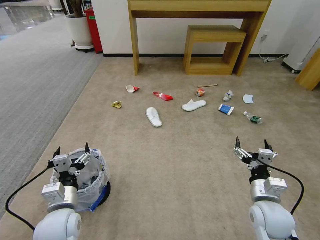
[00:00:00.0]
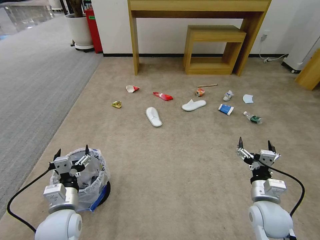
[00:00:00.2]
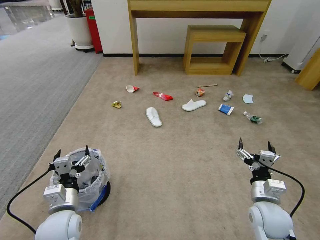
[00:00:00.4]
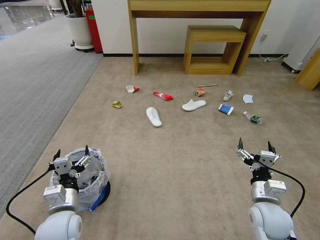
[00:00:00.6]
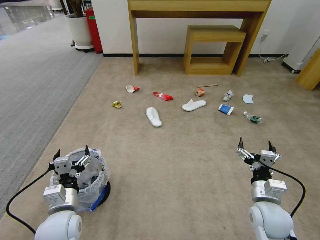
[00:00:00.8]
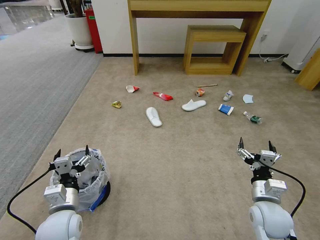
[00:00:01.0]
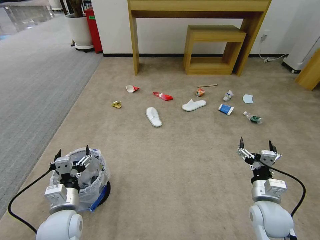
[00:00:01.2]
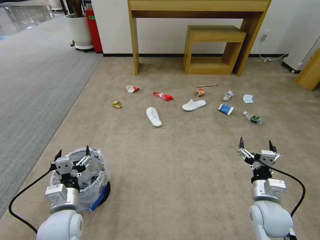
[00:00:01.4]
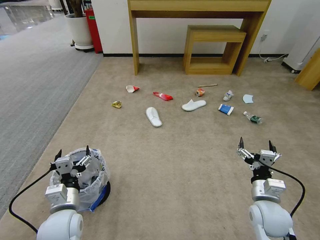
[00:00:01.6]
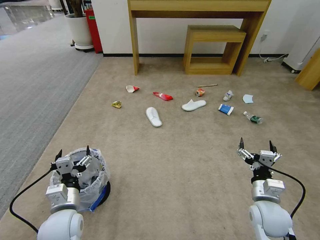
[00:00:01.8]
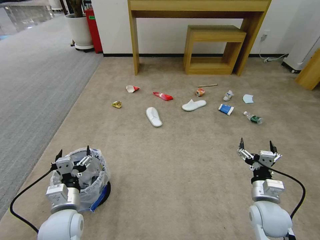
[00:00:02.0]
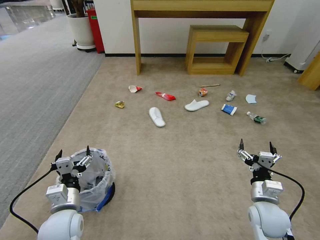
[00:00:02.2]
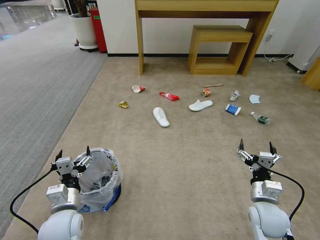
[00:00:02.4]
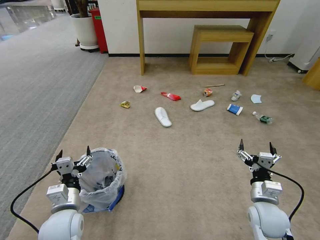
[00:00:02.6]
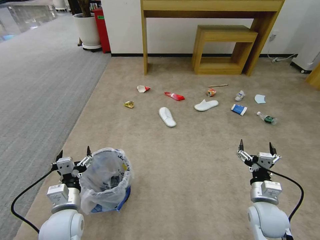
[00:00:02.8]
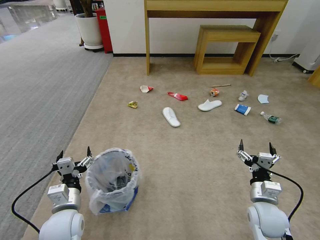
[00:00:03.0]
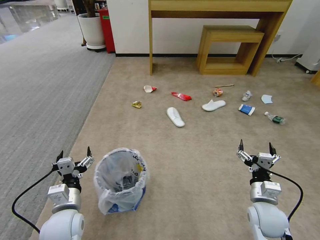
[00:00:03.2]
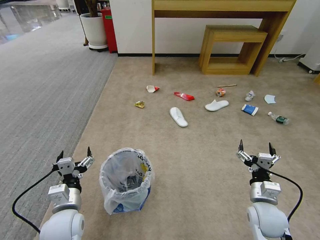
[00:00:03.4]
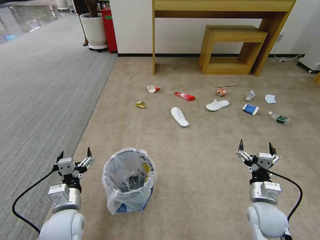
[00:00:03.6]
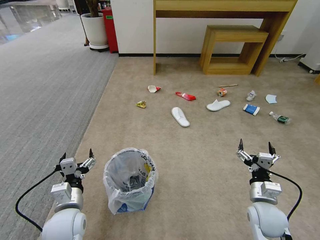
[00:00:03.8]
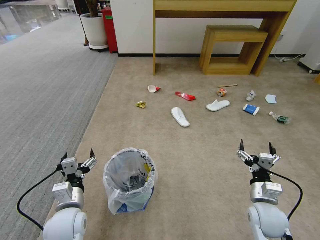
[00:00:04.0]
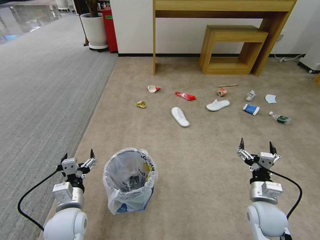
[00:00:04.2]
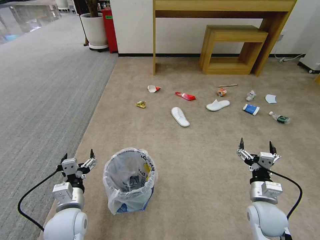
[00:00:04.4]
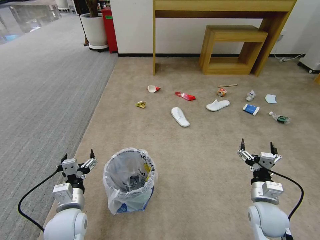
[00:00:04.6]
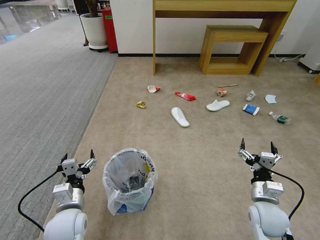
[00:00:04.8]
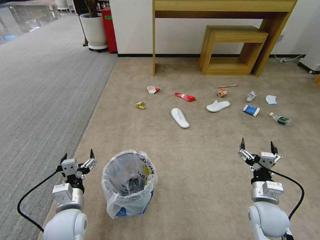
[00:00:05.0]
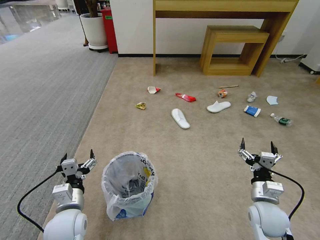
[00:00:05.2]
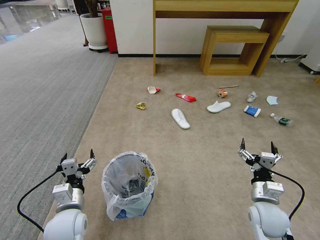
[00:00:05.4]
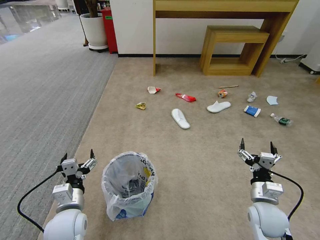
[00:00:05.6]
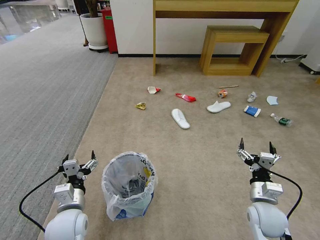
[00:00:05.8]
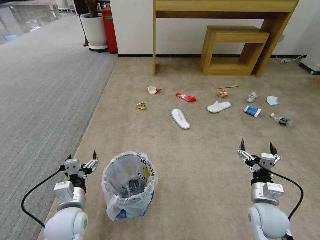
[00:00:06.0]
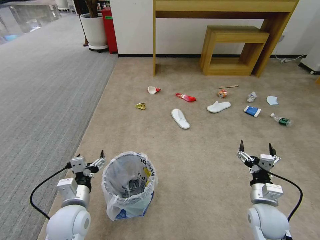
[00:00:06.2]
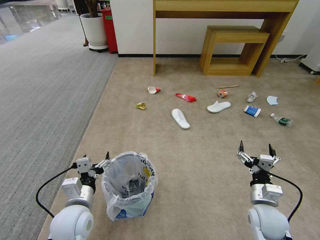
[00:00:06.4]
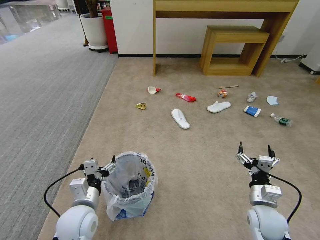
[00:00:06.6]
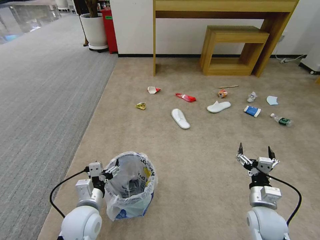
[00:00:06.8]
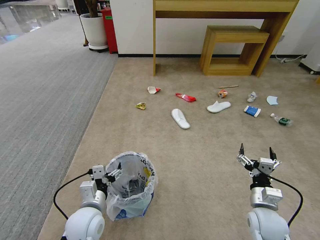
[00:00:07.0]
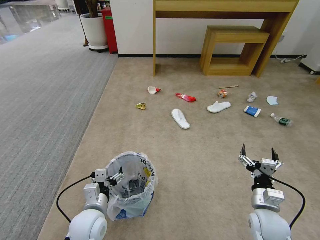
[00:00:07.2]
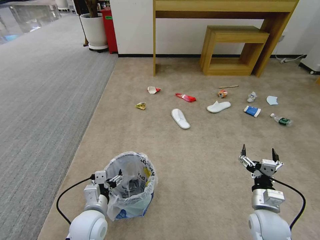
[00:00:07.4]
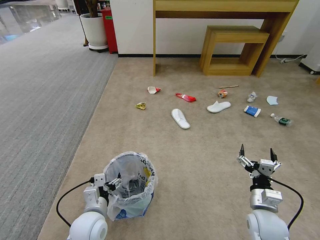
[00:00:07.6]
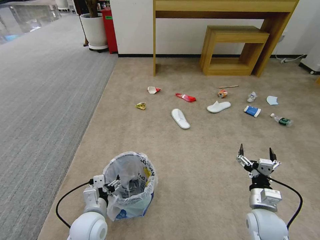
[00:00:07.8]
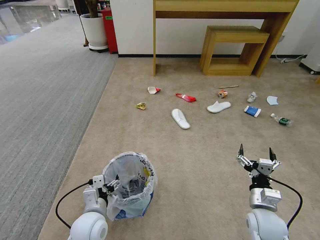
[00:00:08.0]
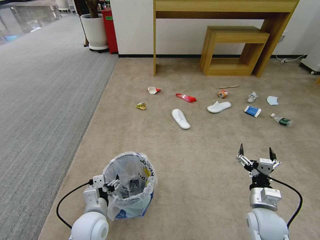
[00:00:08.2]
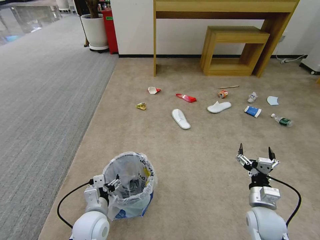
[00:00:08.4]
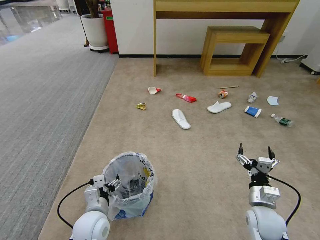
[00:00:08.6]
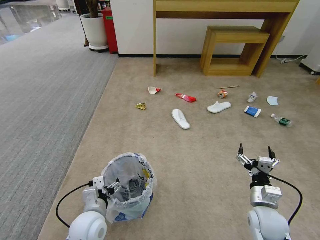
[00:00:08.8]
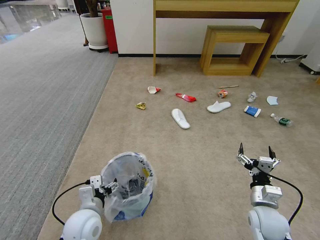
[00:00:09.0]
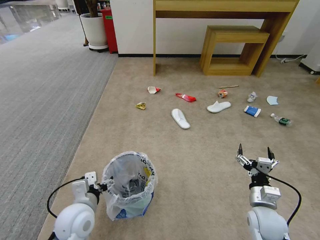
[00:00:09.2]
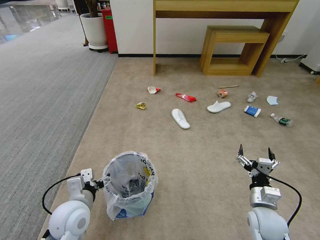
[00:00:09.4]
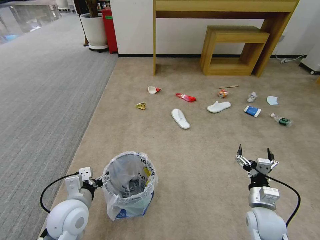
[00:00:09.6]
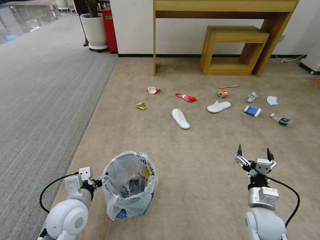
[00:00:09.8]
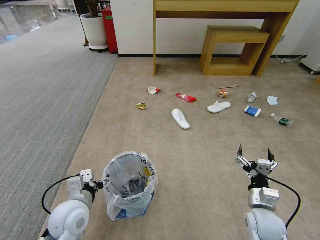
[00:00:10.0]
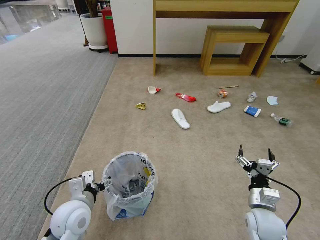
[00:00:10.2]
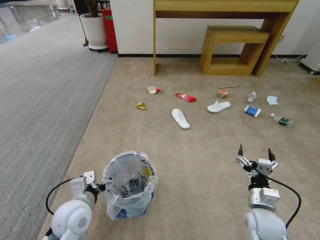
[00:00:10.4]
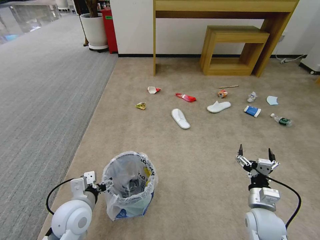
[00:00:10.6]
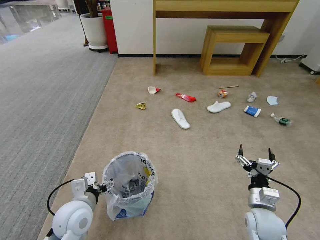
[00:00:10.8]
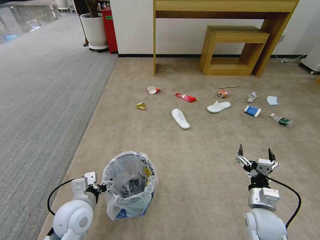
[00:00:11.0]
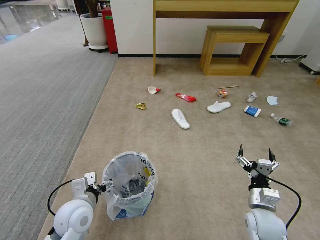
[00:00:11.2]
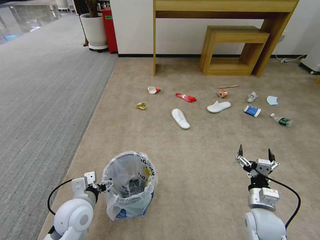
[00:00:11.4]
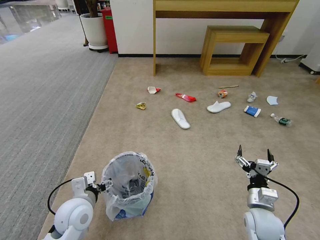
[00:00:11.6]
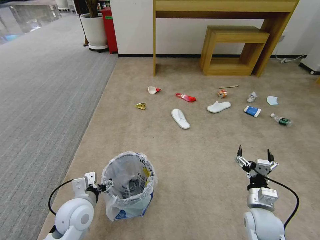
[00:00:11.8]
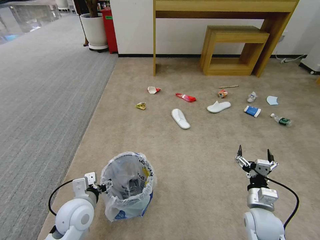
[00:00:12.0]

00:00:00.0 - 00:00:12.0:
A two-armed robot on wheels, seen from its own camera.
Task of the whole recording: Pick up the trash bin and place the garbage on the floor into it.
00:00:01.6 - 00:00:03.0: The grippers move only a little.
00:00:03.0 - 00:00:04.4: Both grippers stay about where they are.
00:00:04.4 - 00:00:06.0: Both grippers stay put.
00:00:06.0 - 00:00:07.6: The left gripper changes place by some 5 cm.
00:00:07.6 - 00:00:09.0: The grippers stay close to where they were, moving slightly.
00:00:09.0 - 00:00:12.0: The grippers move only a little.

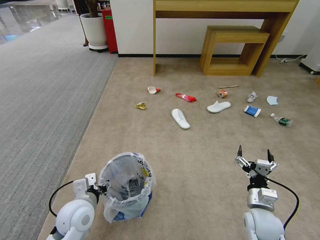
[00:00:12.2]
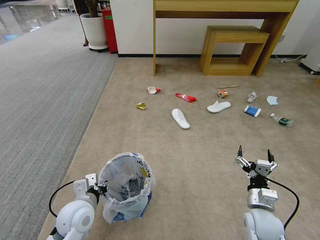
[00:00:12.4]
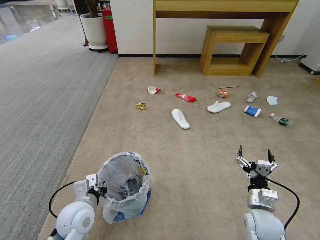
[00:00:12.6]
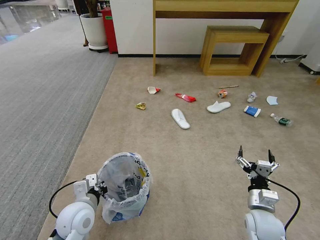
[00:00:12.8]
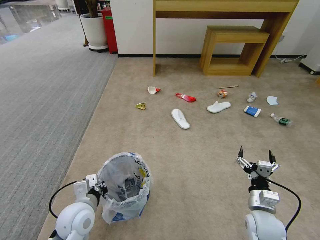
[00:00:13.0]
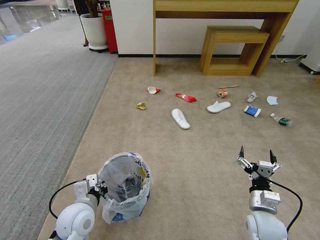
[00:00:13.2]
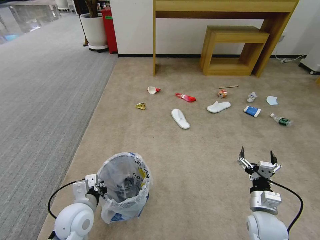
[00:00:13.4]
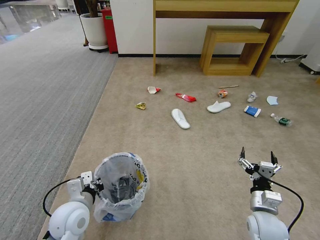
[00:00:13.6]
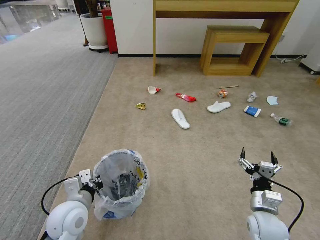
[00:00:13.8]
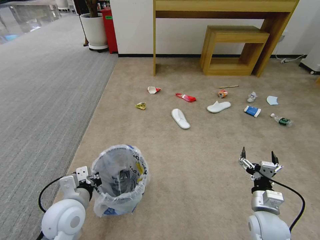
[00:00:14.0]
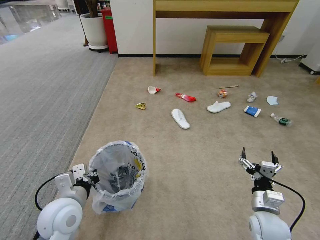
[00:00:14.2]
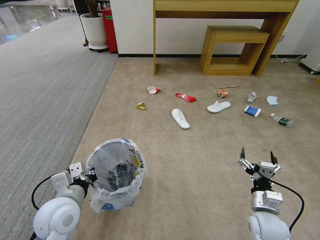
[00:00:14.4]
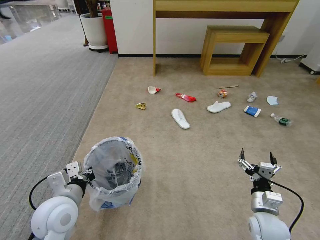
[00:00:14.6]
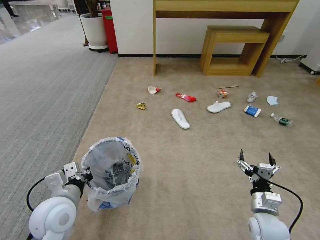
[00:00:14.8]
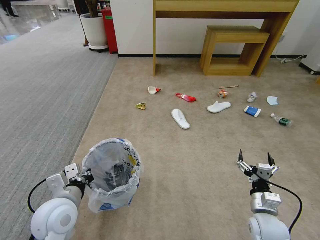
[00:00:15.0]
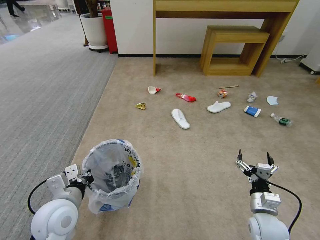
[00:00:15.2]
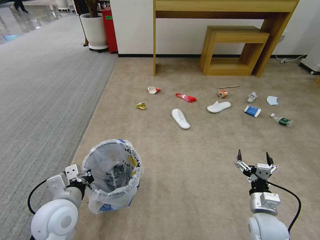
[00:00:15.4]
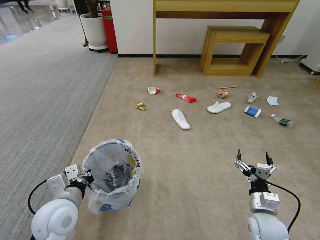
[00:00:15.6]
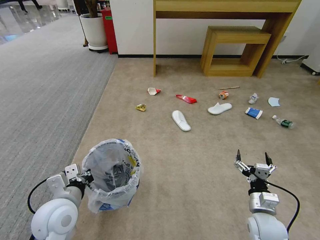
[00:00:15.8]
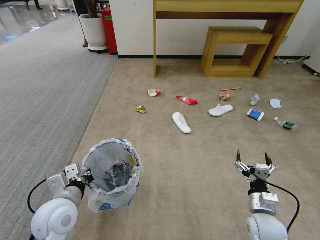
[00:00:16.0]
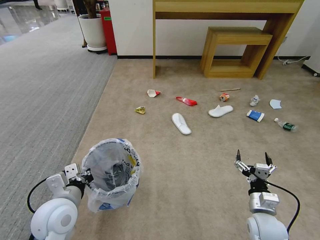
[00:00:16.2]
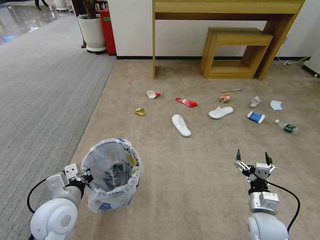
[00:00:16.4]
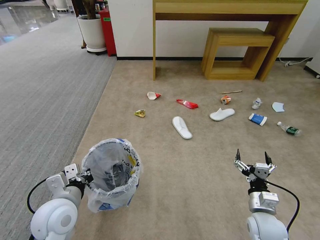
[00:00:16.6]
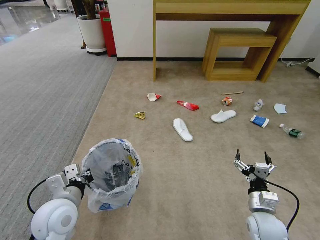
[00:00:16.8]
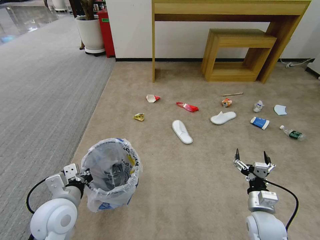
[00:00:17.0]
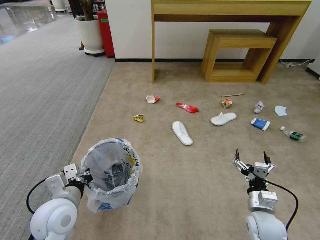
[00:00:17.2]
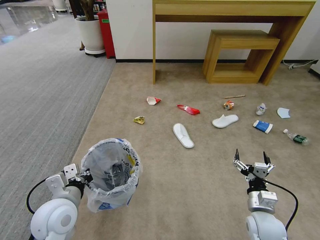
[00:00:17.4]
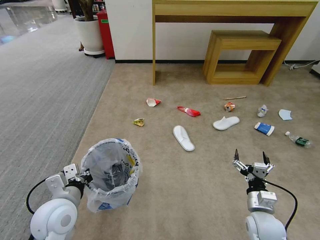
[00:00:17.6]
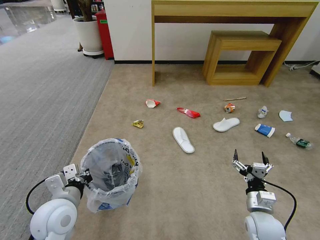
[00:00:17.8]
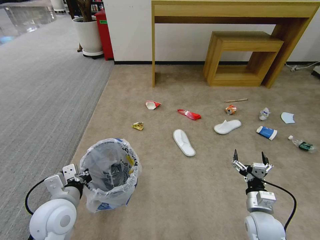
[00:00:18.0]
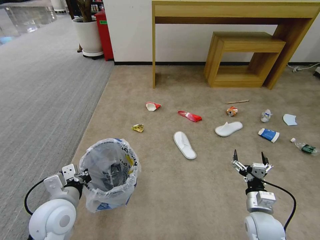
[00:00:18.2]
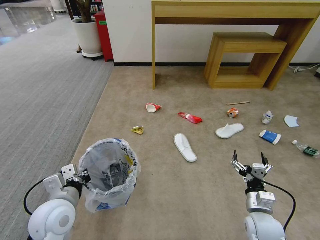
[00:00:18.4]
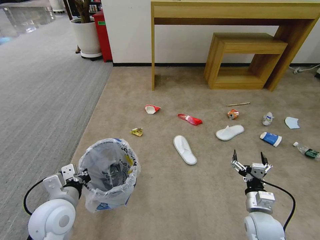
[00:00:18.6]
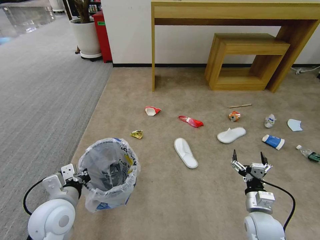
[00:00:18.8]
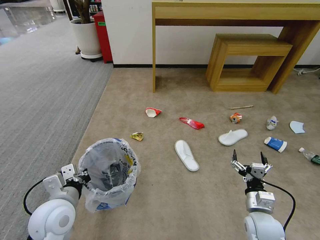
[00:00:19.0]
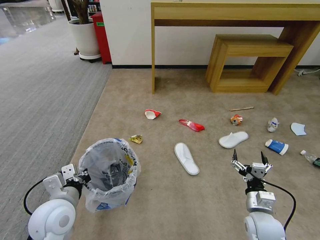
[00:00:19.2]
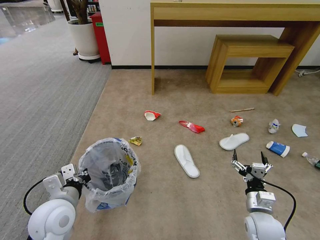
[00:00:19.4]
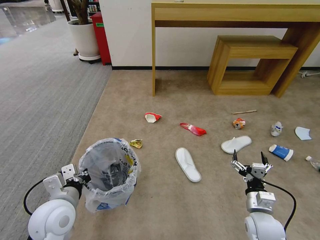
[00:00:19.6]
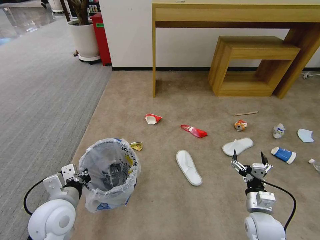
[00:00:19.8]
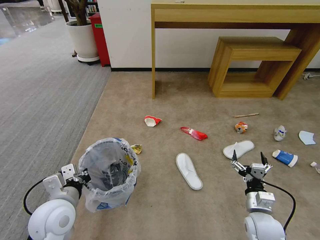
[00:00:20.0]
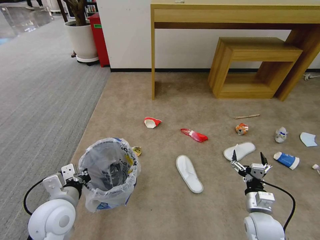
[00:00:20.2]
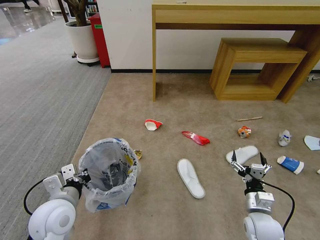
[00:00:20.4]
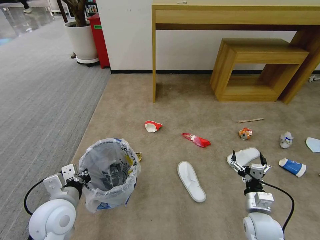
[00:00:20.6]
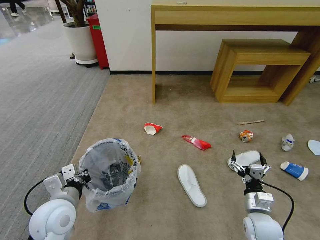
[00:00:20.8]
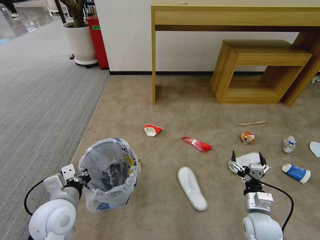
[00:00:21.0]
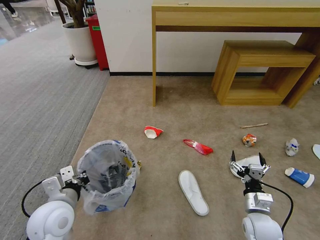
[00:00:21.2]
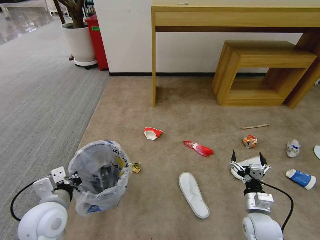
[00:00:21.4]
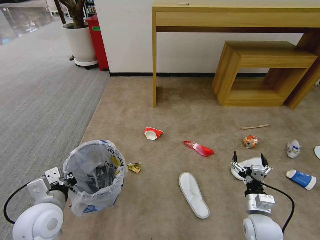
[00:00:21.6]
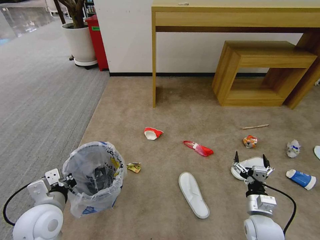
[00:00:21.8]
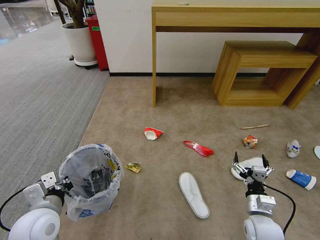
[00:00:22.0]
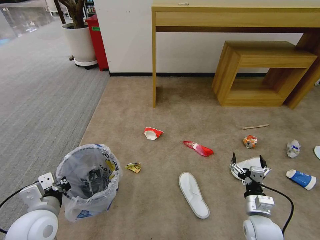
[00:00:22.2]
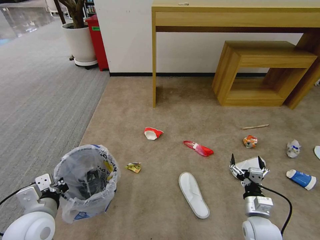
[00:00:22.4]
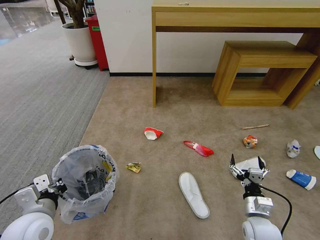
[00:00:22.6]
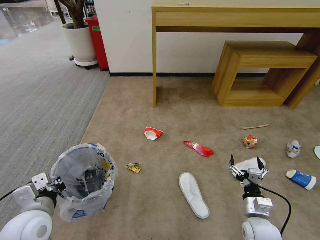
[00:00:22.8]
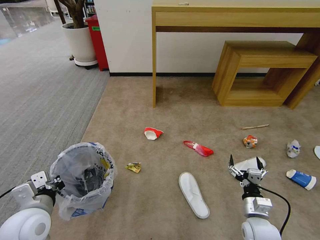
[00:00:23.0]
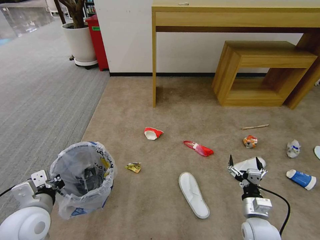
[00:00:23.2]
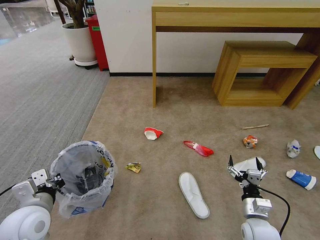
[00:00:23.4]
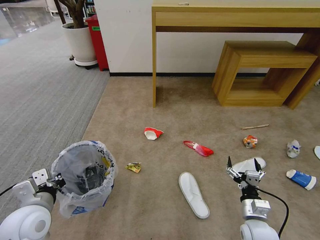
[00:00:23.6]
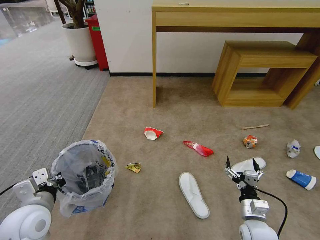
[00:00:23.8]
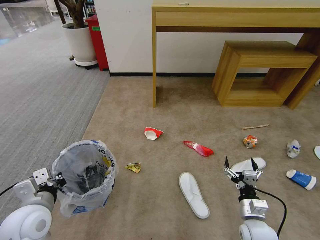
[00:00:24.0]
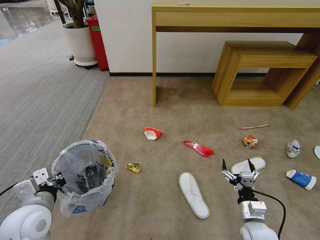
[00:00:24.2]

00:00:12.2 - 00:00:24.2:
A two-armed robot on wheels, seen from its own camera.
Task of the whole recording: Pick up the trash bin and place the garbage on the floor into it.
00:00:12.2 - 00:00:13.8: The left gripper closes up.
00:00:13.8 - 00:00:15.2: The grippers stay close to where they were, moving slightly.
00:00:15.2 - 00:00:19.8: Neither gripper changes place.
00:00:21.2 - 00:00:24.2: The grippers move only a little.
